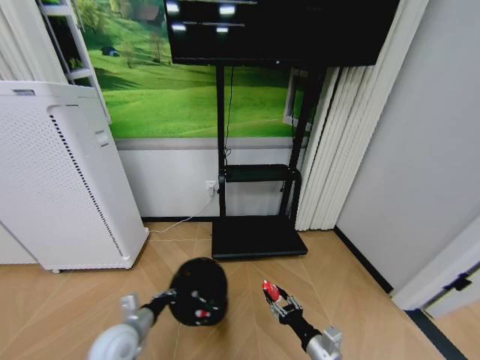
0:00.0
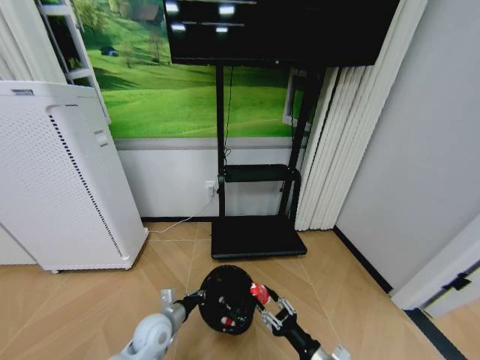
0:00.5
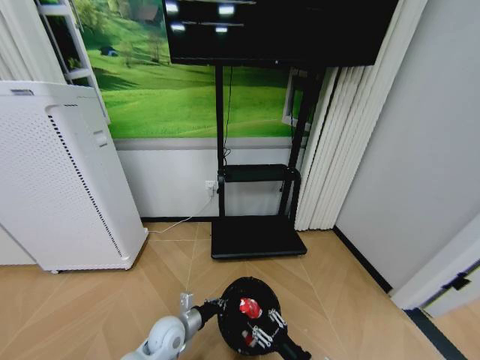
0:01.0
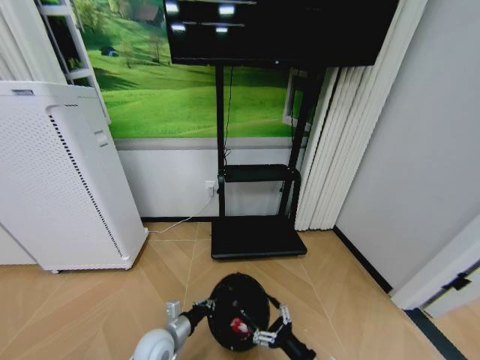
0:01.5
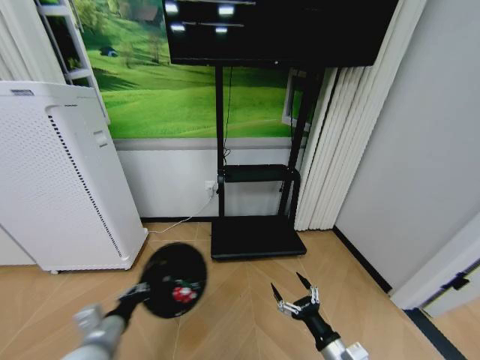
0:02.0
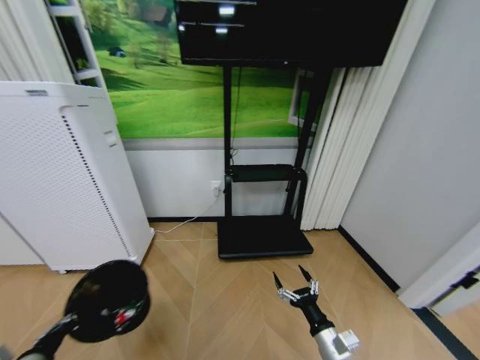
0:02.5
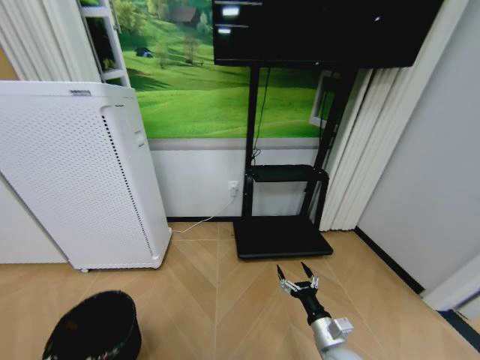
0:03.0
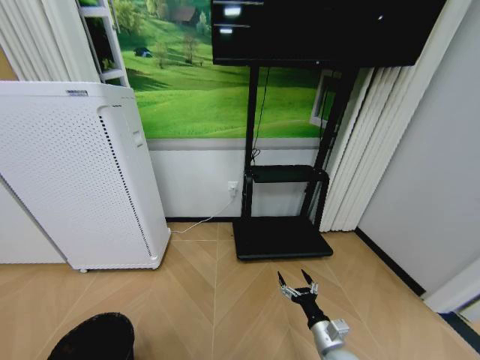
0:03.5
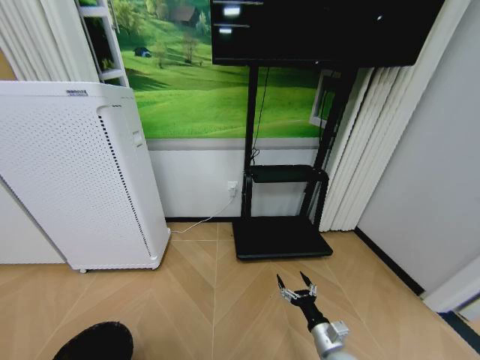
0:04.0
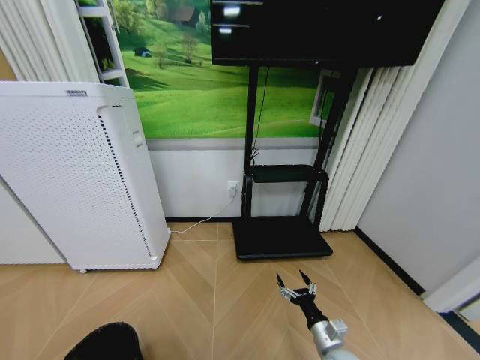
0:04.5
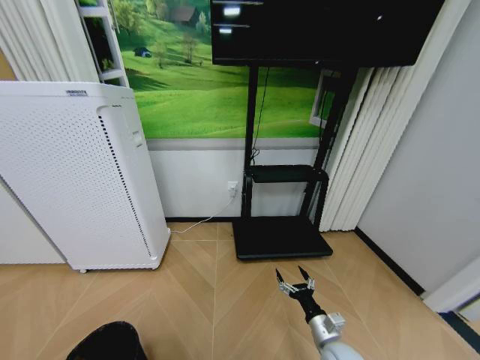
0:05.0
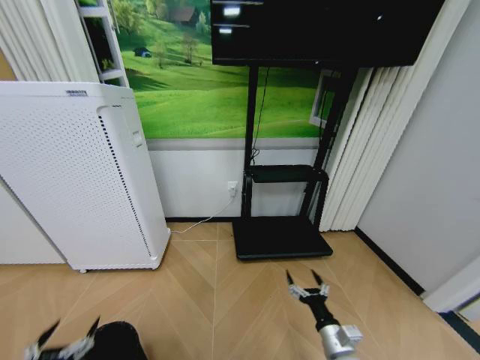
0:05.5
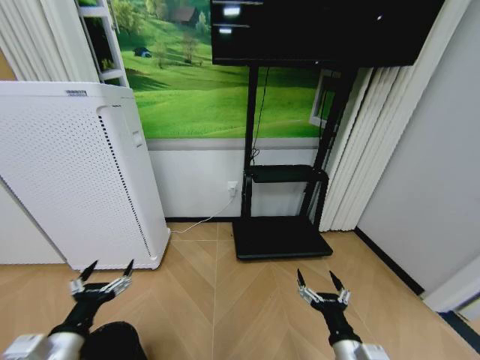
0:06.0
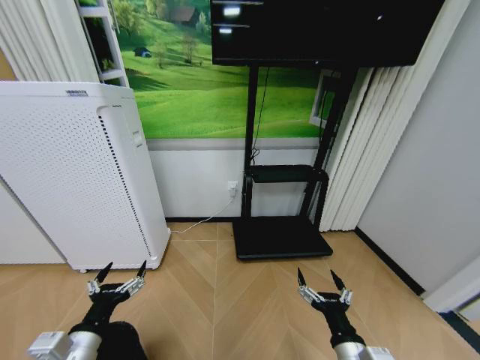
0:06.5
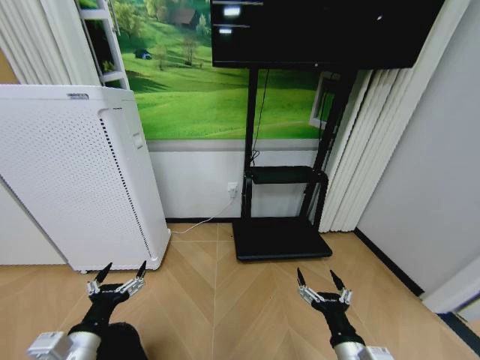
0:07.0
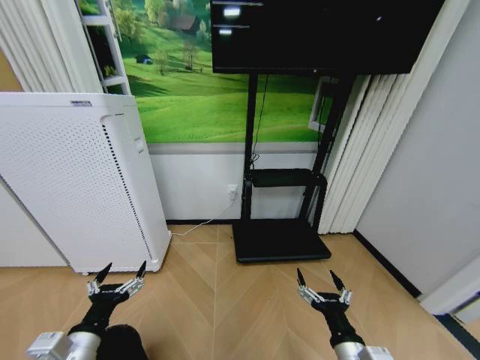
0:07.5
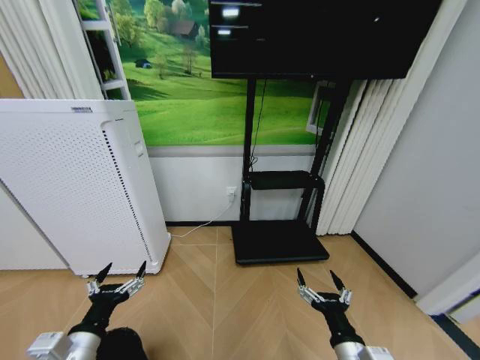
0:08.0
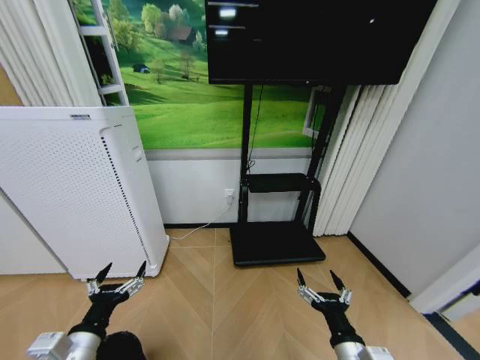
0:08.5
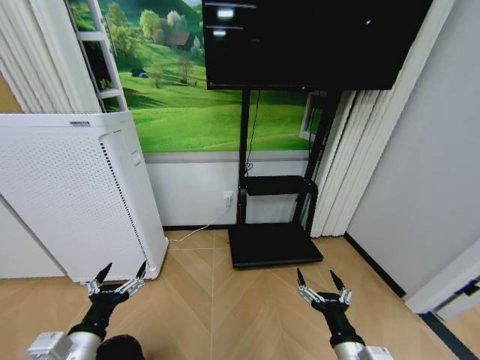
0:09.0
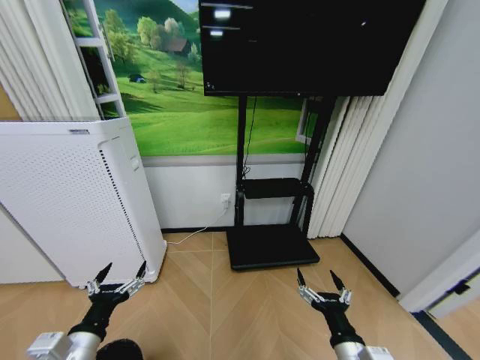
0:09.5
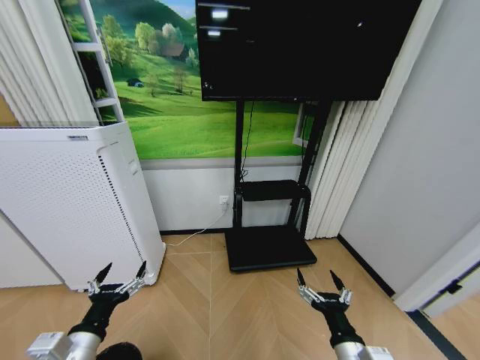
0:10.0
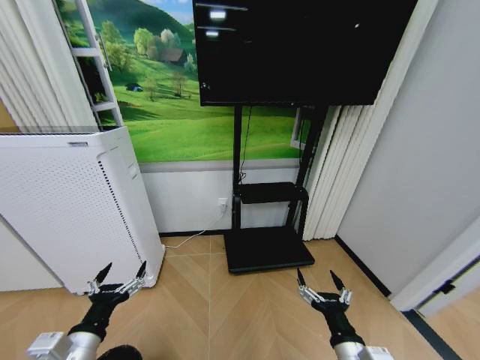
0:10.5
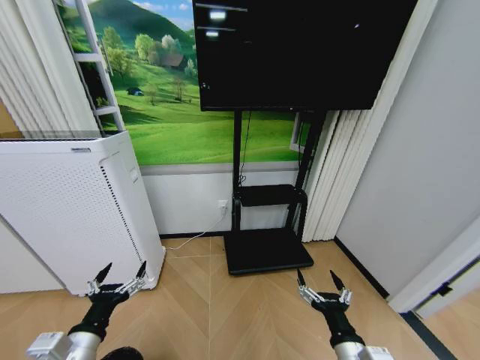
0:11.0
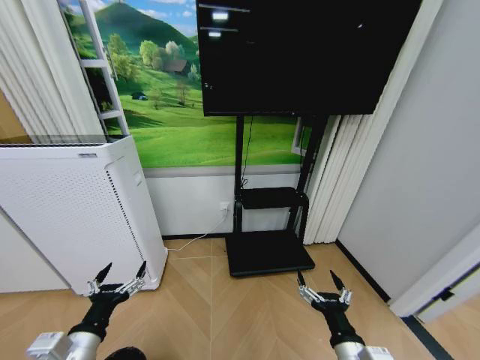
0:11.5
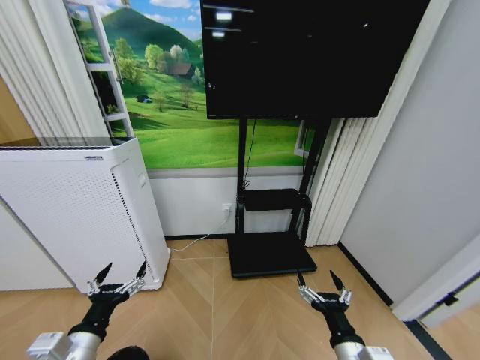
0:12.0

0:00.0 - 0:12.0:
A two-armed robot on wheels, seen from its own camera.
Task of the whole recording: Pick up the trash bin and place the garbage on the floor into it.
0:00.0 - 0:02.0: The right gripper opens up, while the left gripper is displaced upward and backward by approximately 10 cm.
0:02.0 - 0:04.0: The left gripper heads backward, to the left and downward, covering some 20 cm, while the right gripper shifts some 10 cm downward and forward.
0:04.0 - 0:06.0: The left gripper shifts roughly 15 cm upward, to the right and forward, and opens up. The right gripper goes approximately 10 cm upward and backward.
0:06.0 - 0:08.0: The grippers move only a little.
